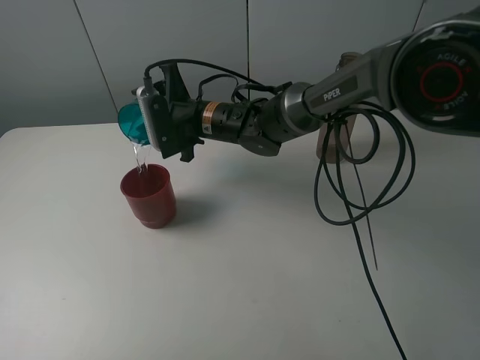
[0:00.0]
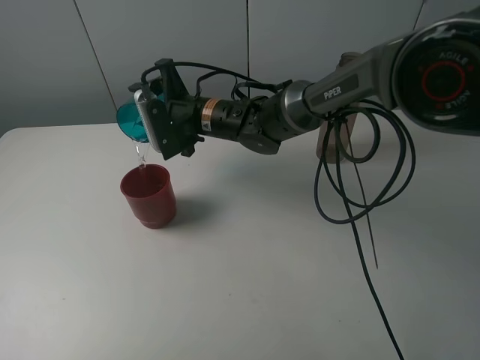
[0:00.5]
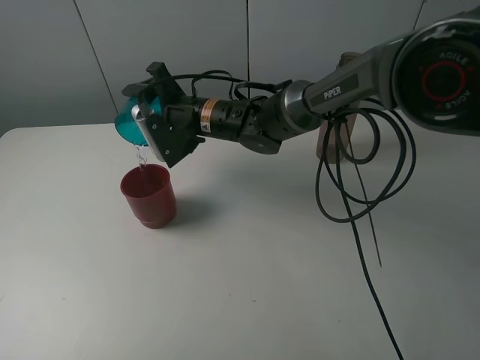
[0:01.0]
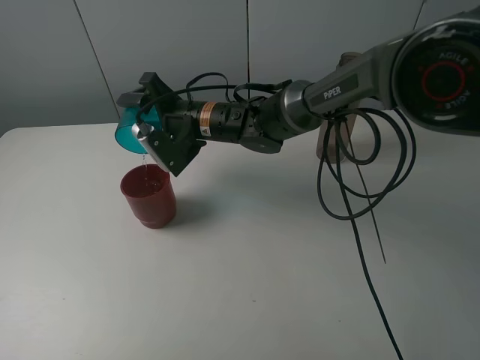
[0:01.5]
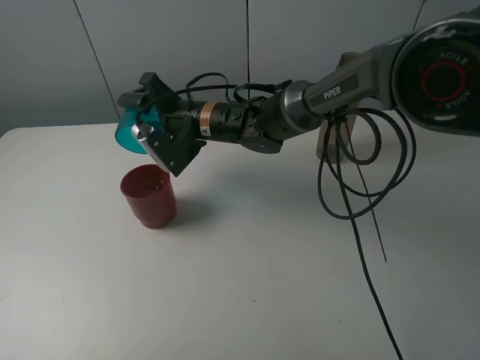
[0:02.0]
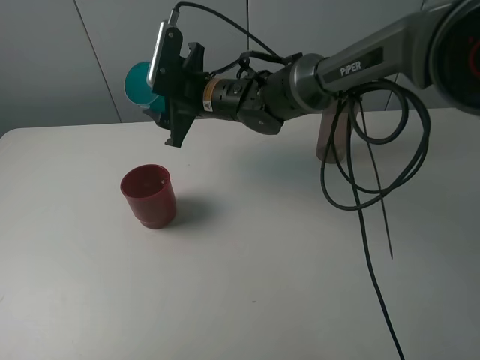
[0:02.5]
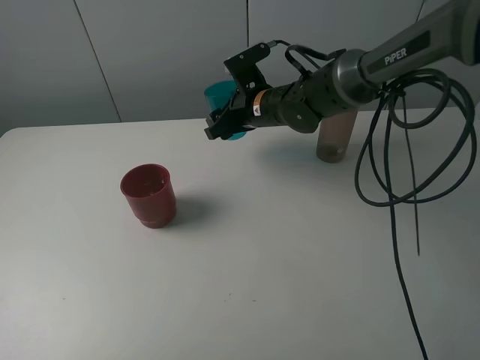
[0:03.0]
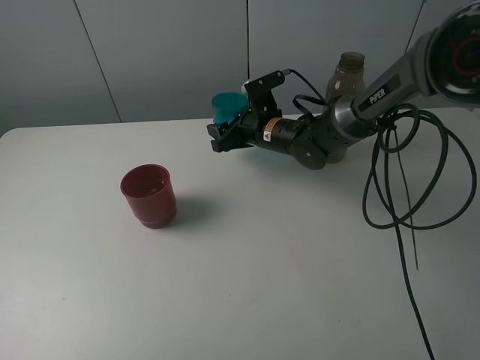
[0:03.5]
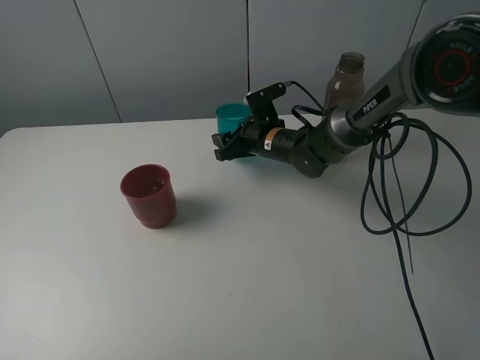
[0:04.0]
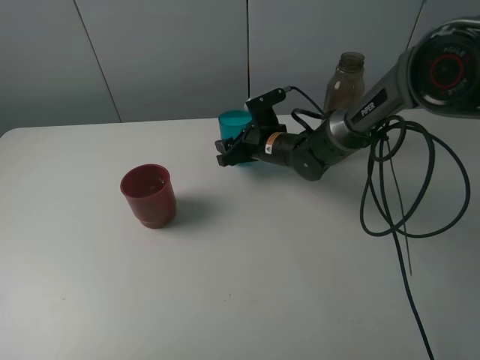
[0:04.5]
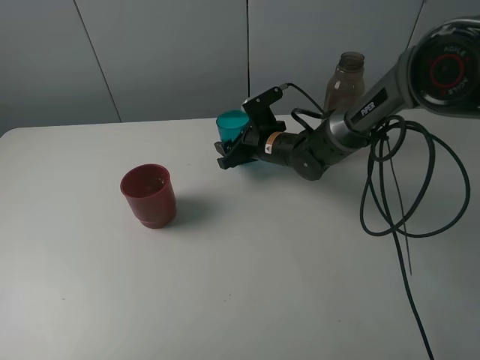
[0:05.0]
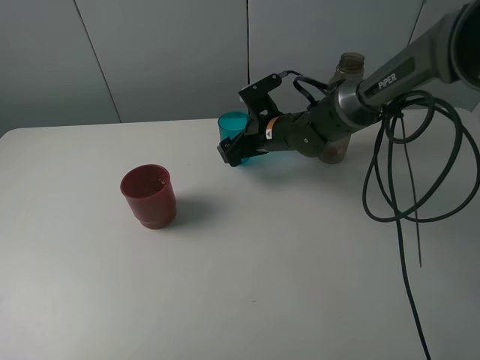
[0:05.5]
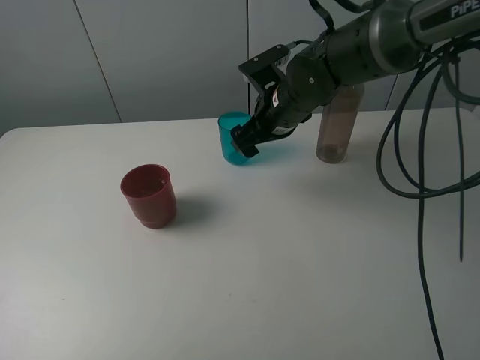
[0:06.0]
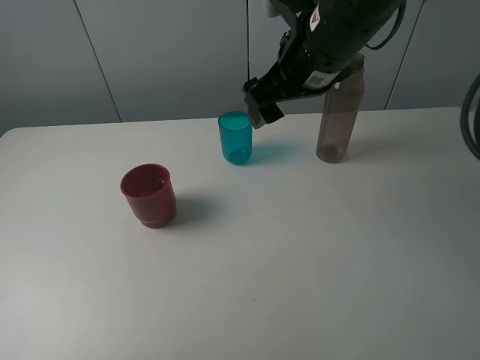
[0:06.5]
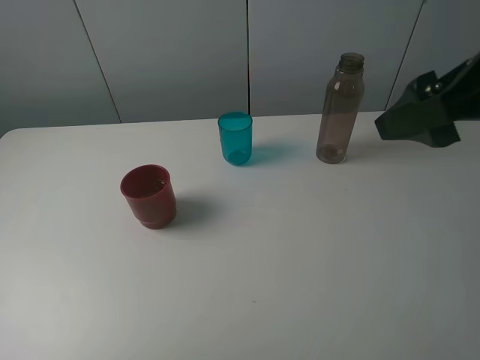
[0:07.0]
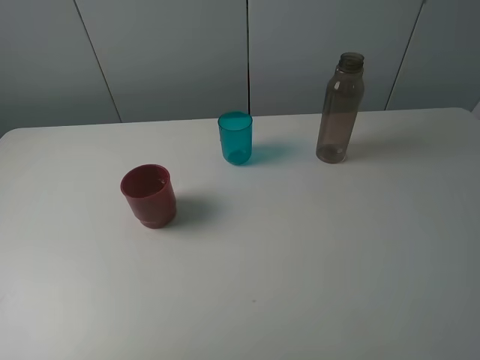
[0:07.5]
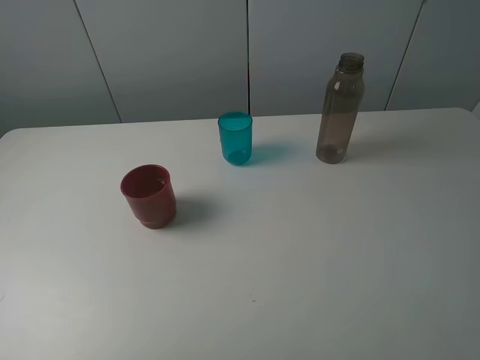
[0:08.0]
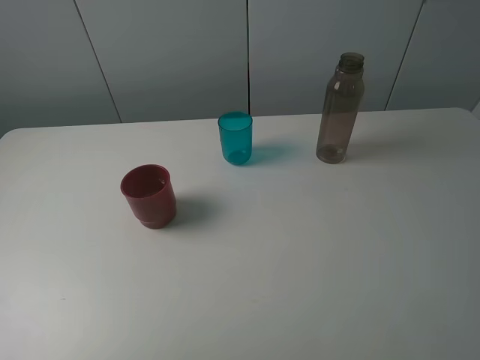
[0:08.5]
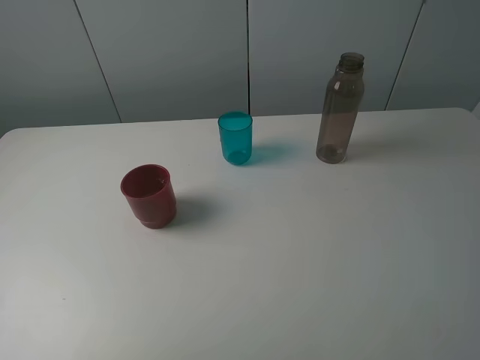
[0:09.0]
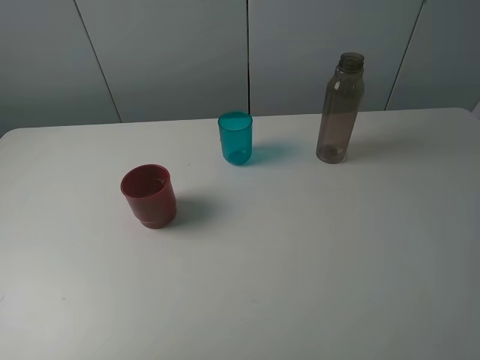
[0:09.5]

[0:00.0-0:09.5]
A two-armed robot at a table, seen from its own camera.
Task of the whole recording: pick up the bottle and pour water into the cup, then pick up the cup containing water and pour it into another cup.
Step, 0:02.0 to 0:05.0: Place the blue cup with the right gripper.
0:02.0 to 0:04.0: The right gripper heads to the right and downward, covering approximately 15 cm.
0:04.0 to 0:05.5: The right gripper opens.
0:05.5 to 0:07.5: The right gripper moves backward, upward and to the right, roughly 50 cm.

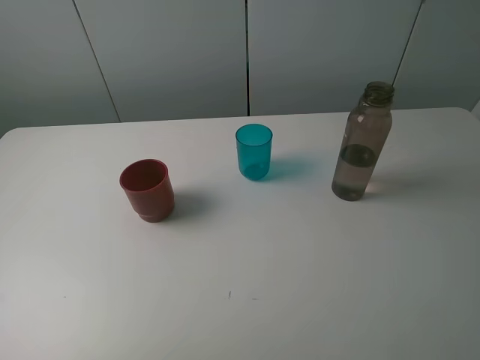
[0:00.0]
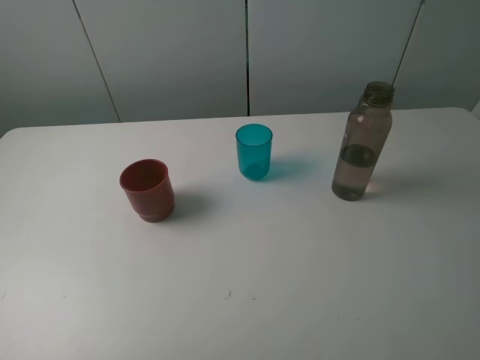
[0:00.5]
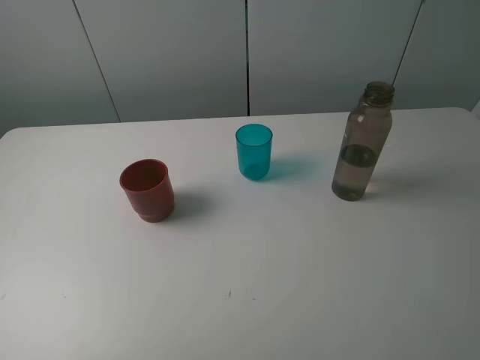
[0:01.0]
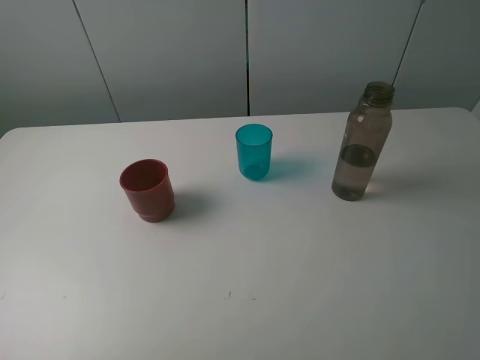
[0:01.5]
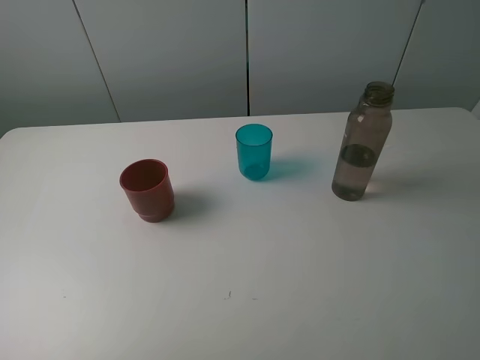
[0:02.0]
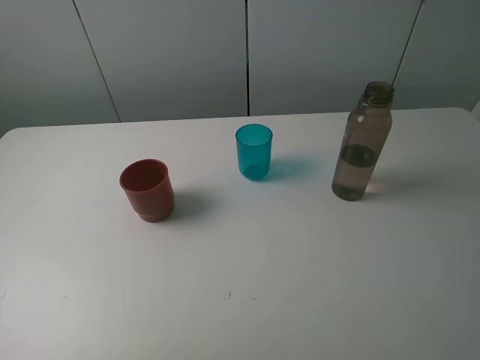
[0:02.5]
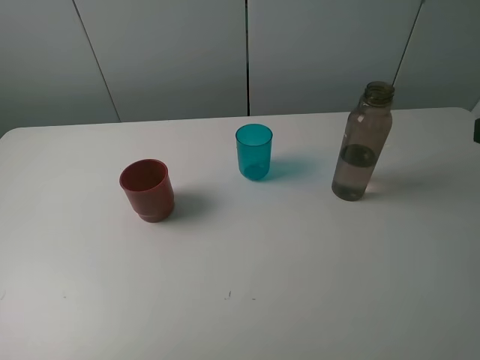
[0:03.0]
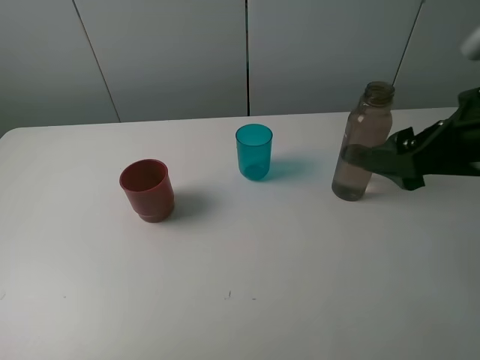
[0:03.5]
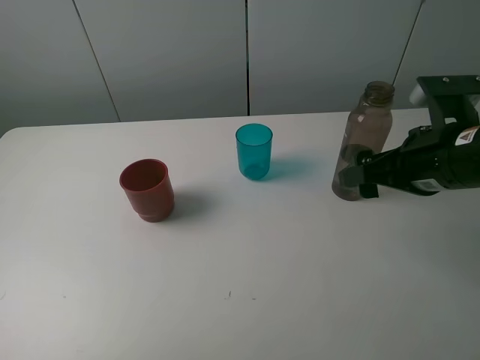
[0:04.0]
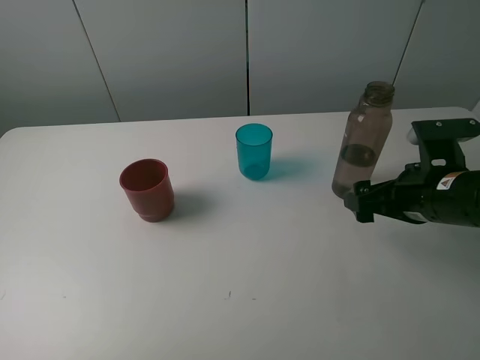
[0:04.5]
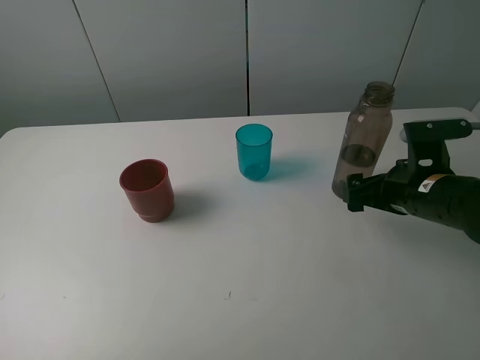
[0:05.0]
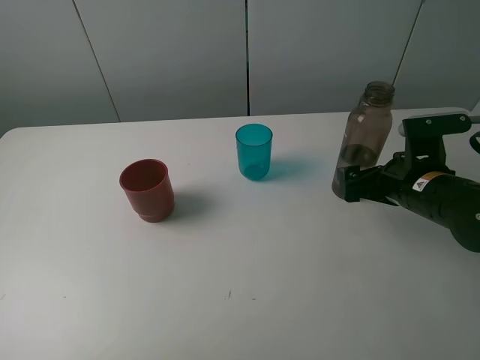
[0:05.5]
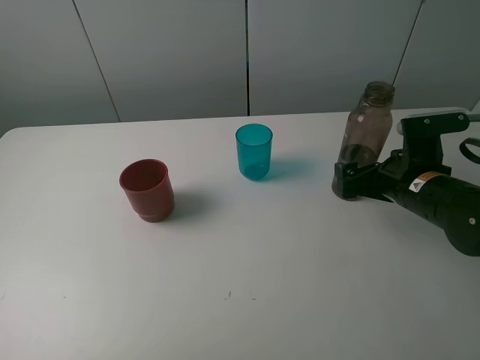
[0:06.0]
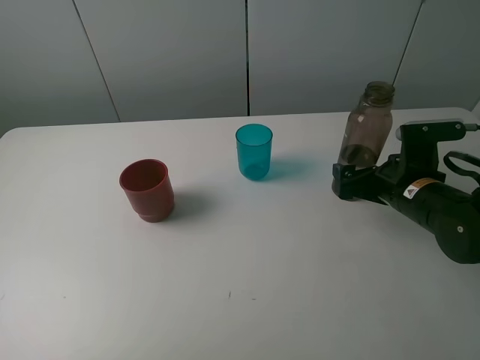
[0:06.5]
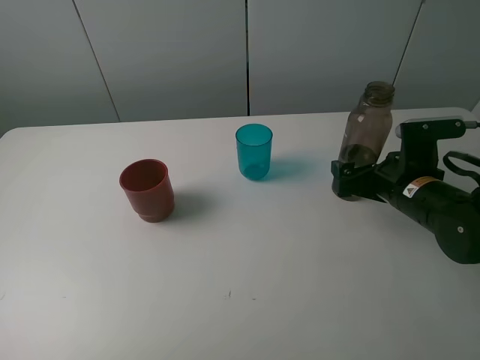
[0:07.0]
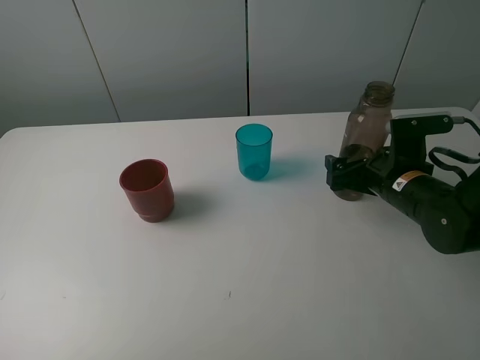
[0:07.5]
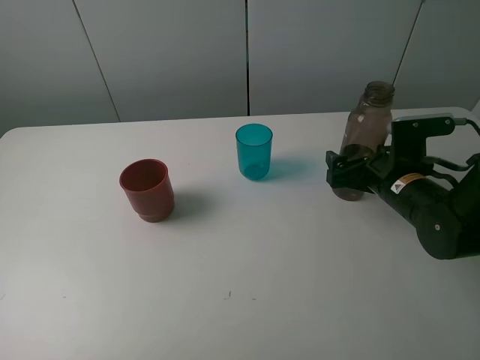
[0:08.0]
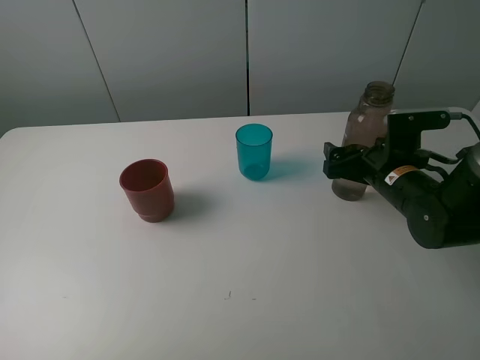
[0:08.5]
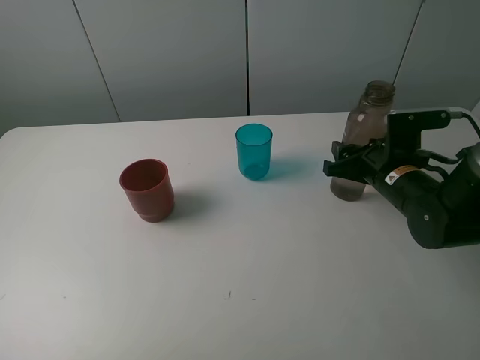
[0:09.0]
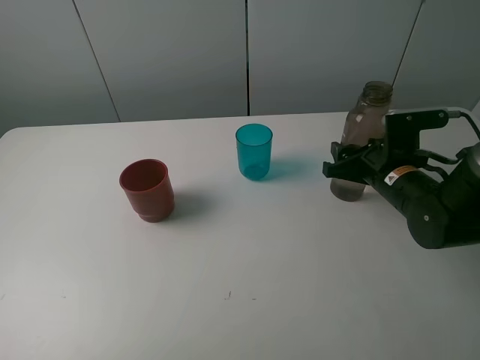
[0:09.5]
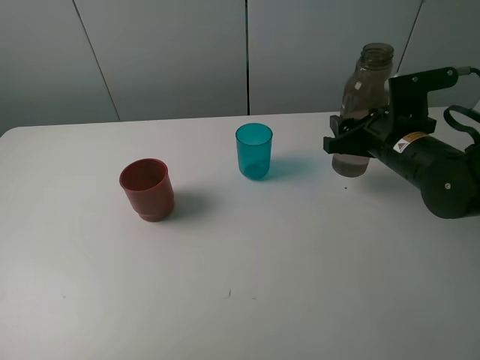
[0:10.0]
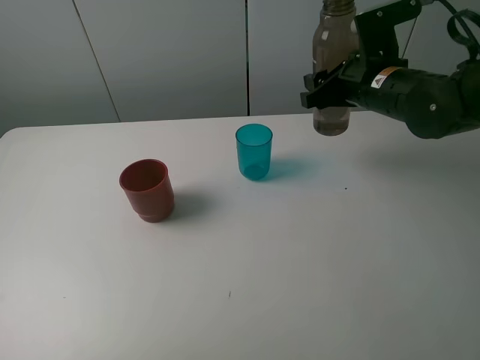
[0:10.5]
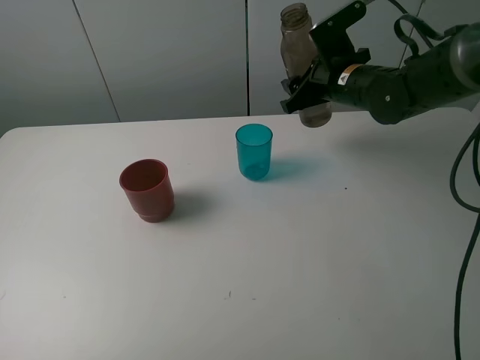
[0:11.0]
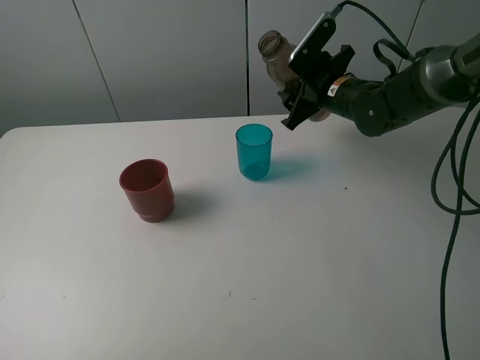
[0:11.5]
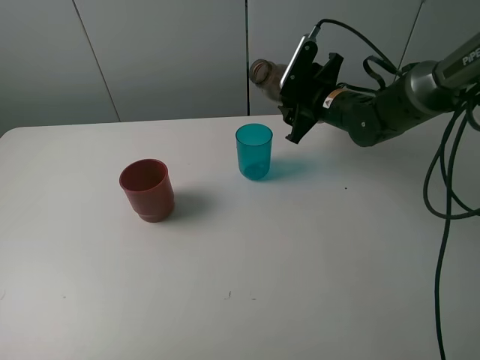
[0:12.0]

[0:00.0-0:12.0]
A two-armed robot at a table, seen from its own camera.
Task of the whole recording: pick up the bottle and pour water into the cup, then pick up the cup containing water and pour it into another cup.
Step, 0:00.0 to 0:09.0: Grasp the brown bottle with the right gripper.
0:00.0 to 0:02.0: Both grippers stay about where they are.
0:02.0 to 0:04.0: The right gripper moves forward and downward, approximately 25 cm.
0:04.0 to 0:06.0: The right gripper goes approximately 10 cm downward.
0:06.0 to 0:08.0: The grippers move only a little.
0:08.0 to 0:10.0: The right gripper moves upward, approximately 5 cm, and closes up.
0:10.0 to 0:12.0: The right gripper travels forward and to the left by about 15 cm.

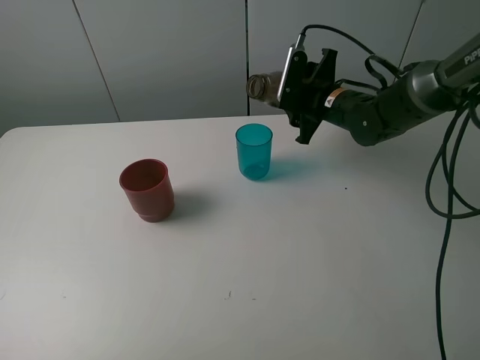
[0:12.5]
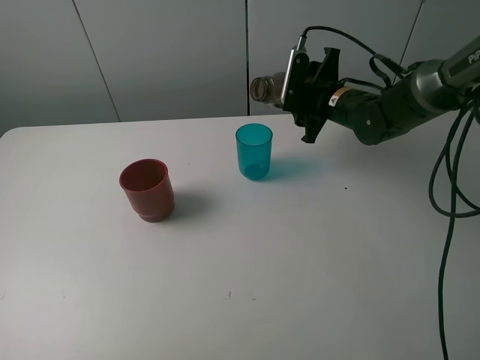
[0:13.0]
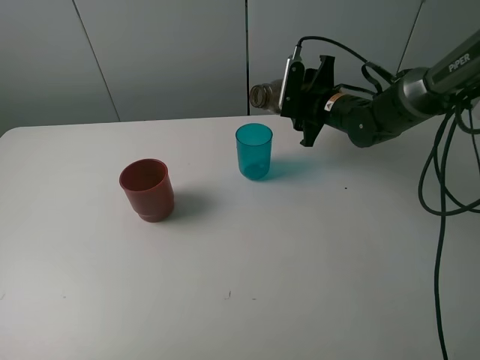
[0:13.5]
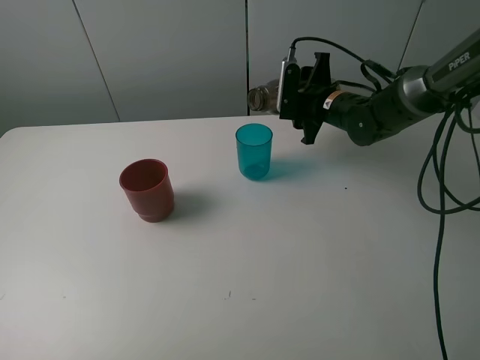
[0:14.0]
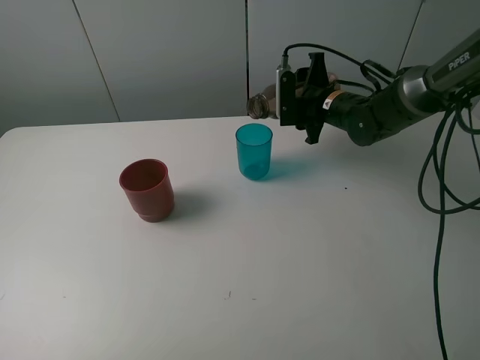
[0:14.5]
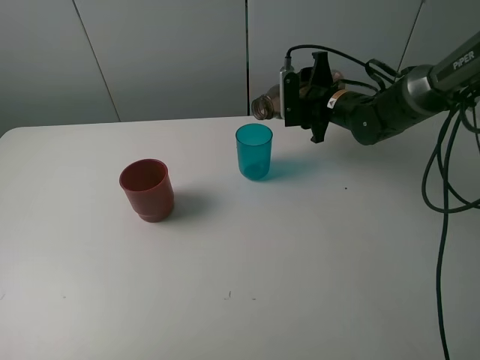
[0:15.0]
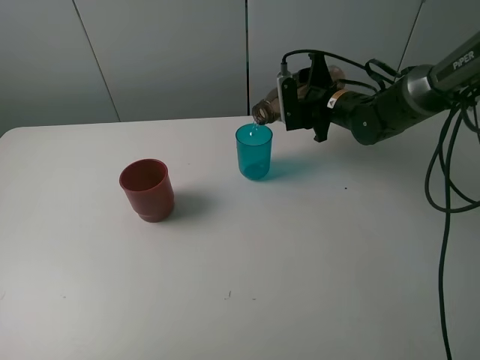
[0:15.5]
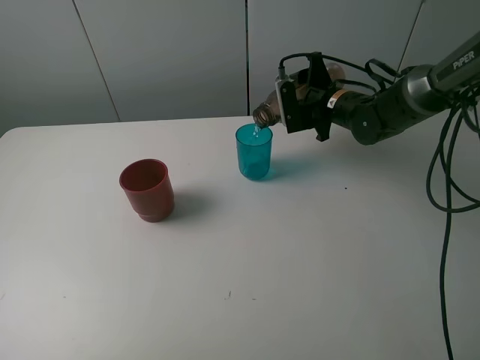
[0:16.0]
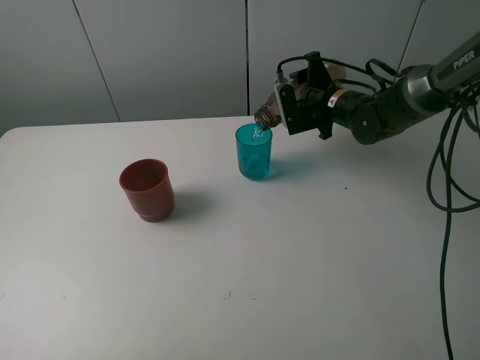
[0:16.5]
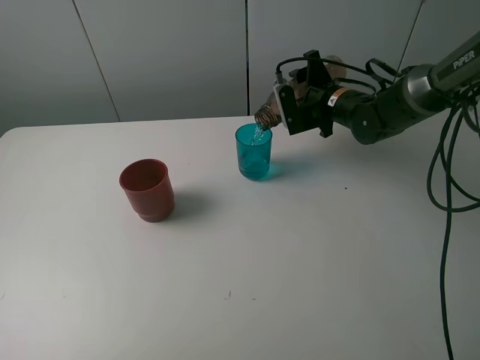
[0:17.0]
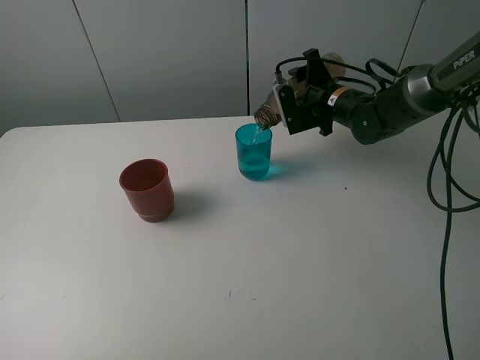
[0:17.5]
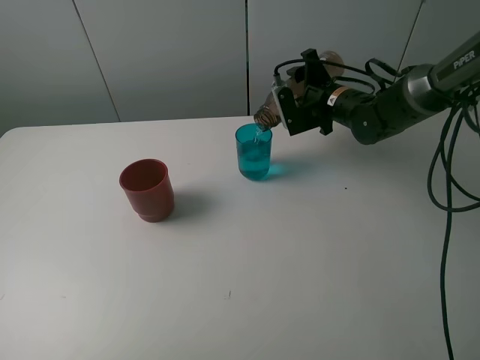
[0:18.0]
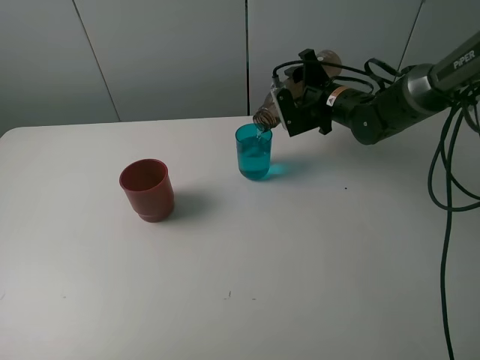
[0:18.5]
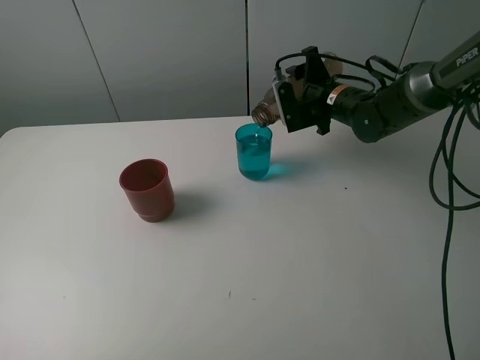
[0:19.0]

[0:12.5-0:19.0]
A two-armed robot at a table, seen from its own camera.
Task of the whole recording: pick up the bottle and pour water into the cup, then pick up the cup containing water and pour it into another cup.
0:12.5 to 0:14.5: The grippers stay close to where they were, moving slightly.
0:14.5 to 0:17.0: The grippers stay close to where they were, moving slightly.
0:17.0 to 0:19.0: Both grippers stay about where they are.
